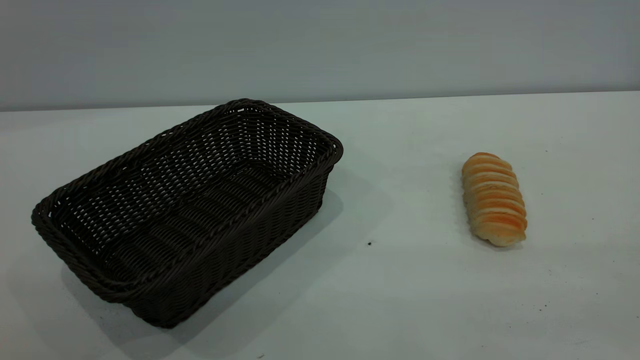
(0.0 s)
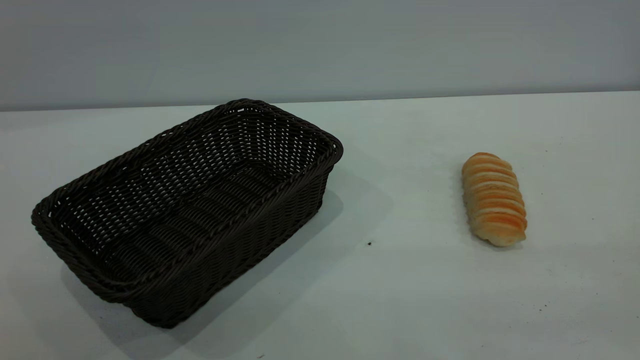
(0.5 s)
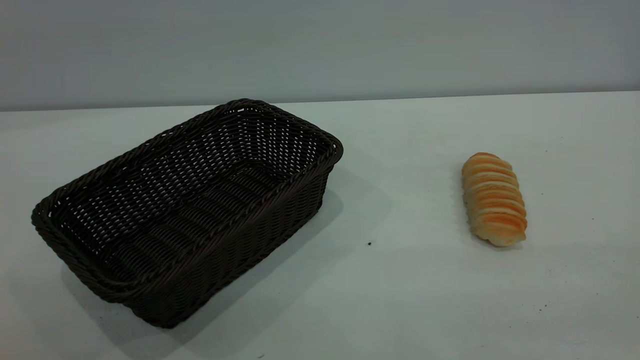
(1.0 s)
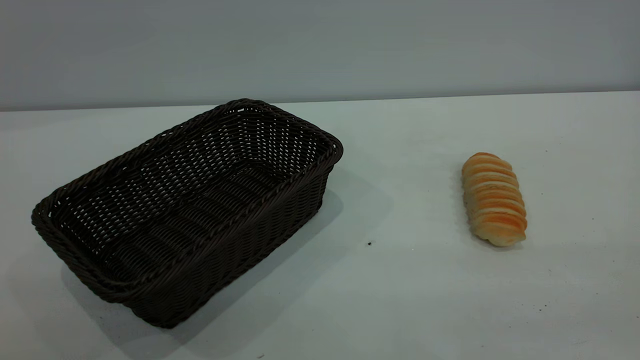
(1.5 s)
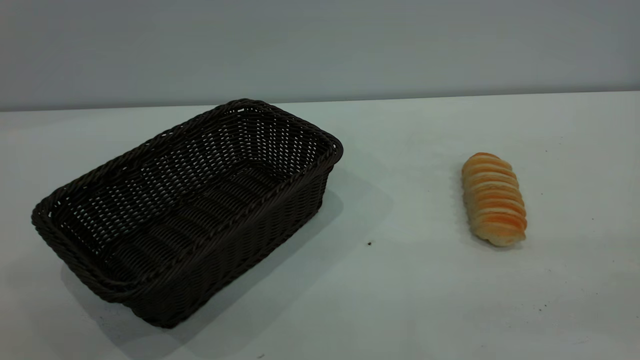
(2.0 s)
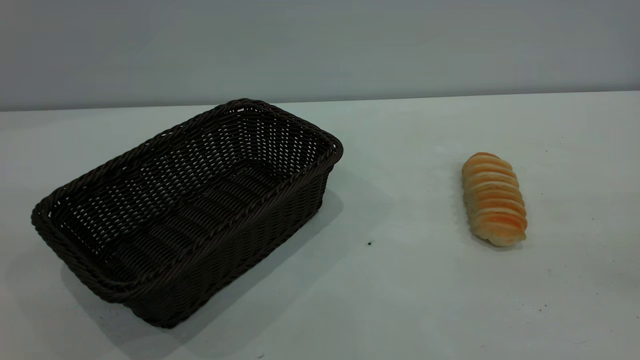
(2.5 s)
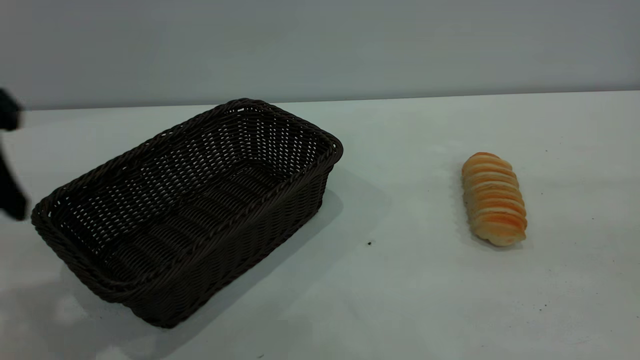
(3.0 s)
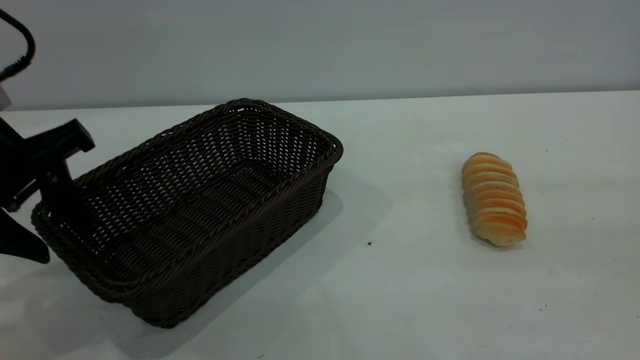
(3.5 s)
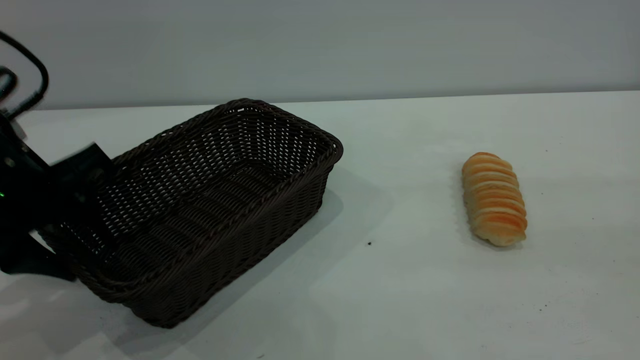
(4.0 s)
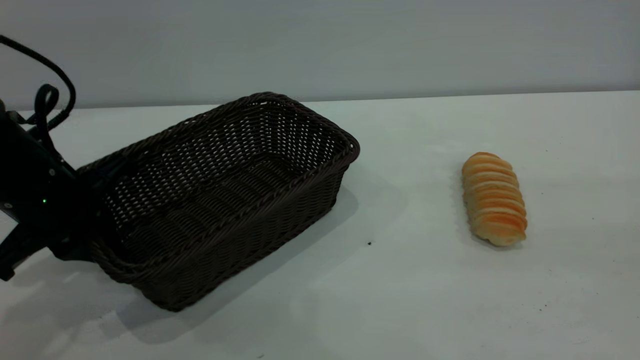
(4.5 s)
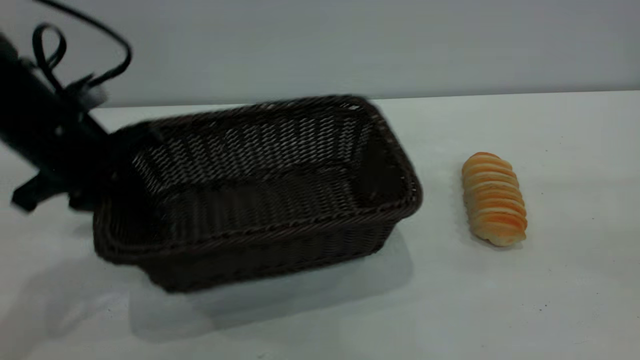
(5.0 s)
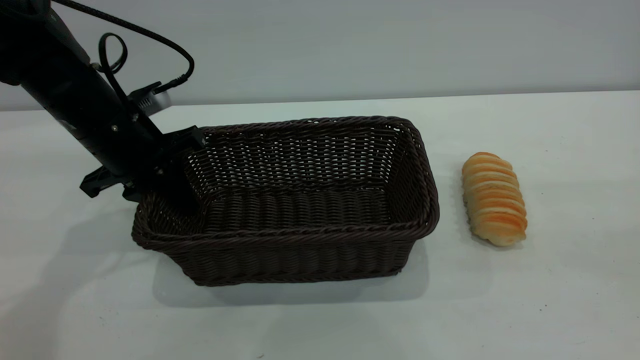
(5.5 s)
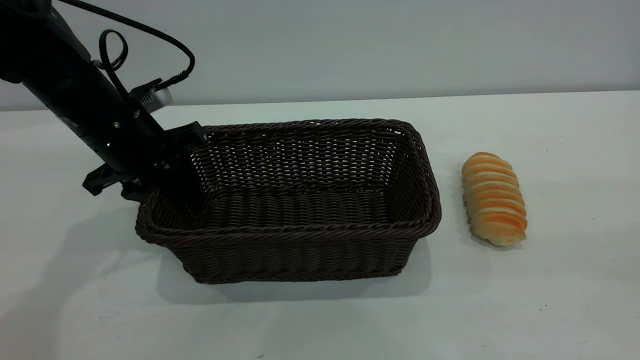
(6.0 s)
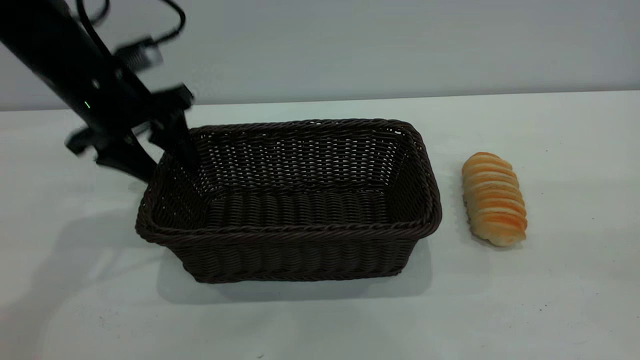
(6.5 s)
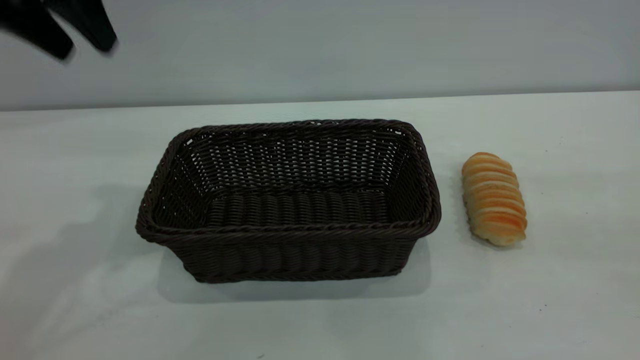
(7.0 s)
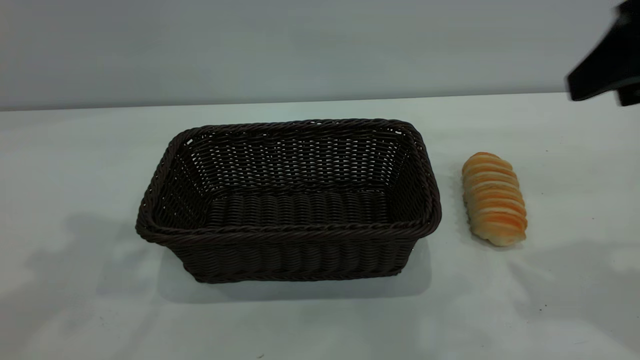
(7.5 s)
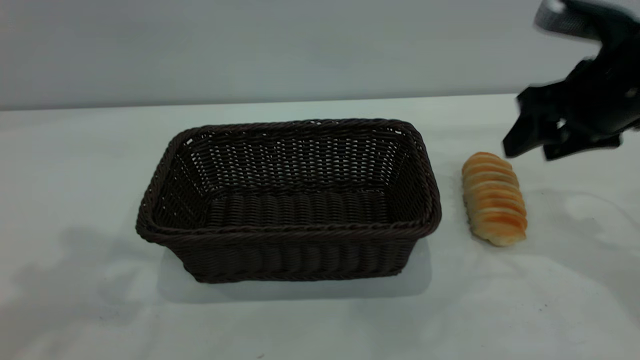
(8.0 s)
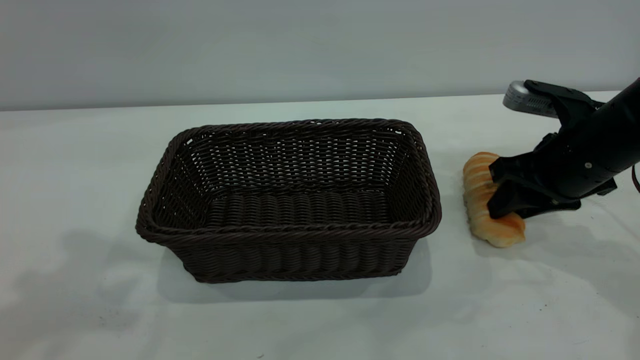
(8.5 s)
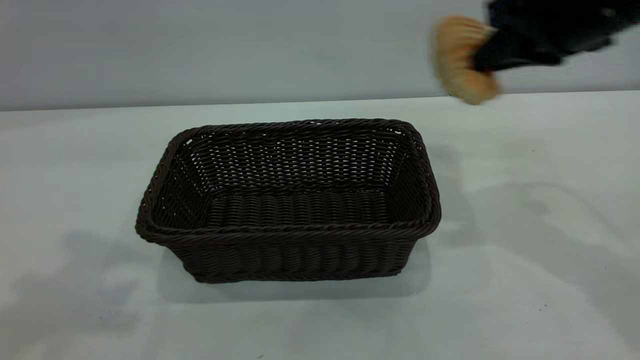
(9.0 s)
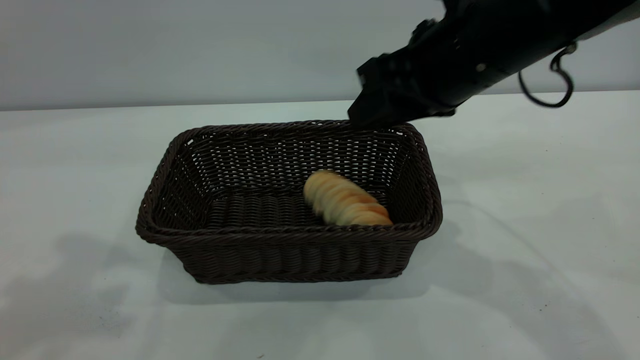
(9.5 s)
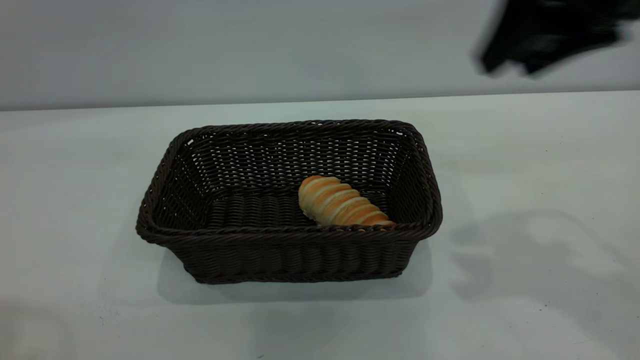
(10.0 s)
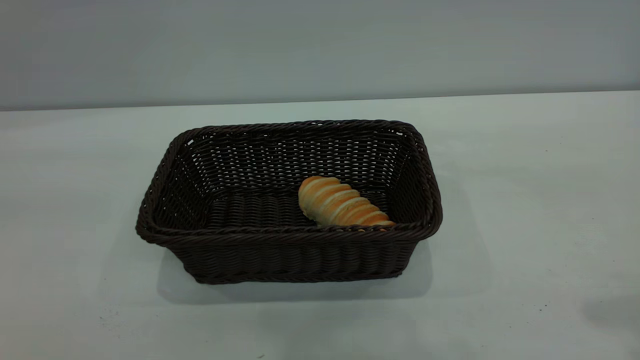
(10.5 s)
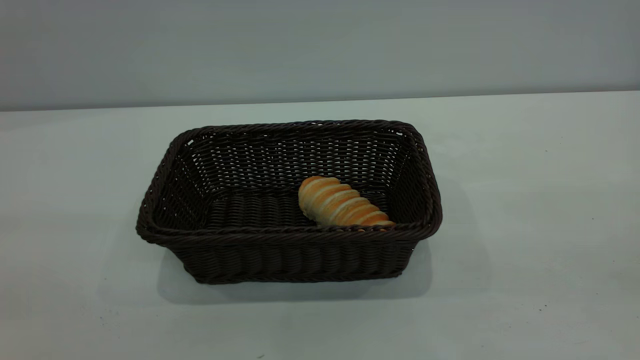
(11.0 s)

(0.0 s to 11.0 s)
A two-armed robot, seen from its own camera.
Task of the whole recording: One hand grasps the black basket and places it in the middle of the table, while the other hand picks up the long bread and puts it into the black basket.
Step, 0.0 s - 6.5 s: Move the basket to the center of view.
Step, 9.0 s - 9.5 s: place the bread into the basket.
2.0 s - 3.5 s: The left gripper shifts approximately 30 cm forward and downward.
3.5 s - 5.5 s: The left gripper moves forward and downward, roughly 15 cm, and closes.
5.5 s - 7.5 s: The right gripper heads forward, covering approximately 20 cm. The left gripper travels upward by about 30 cm, and opens.
7.5 s - 9.0 s: The right gripper is displaced forward and to the left by some 10 cm, reaches about 15 cm downward, then returns, and closes up.
9.0 s - 11.0 s: Both grippers move backward, some 25 cm. The right gripper opens.
